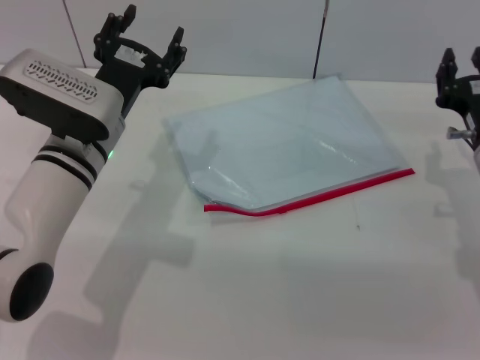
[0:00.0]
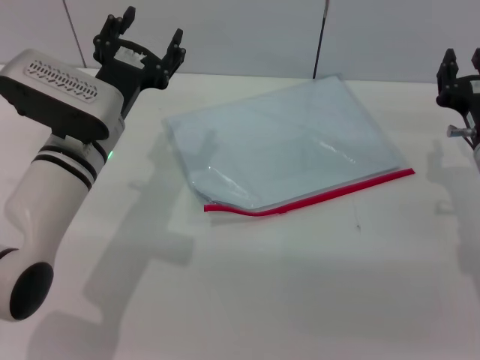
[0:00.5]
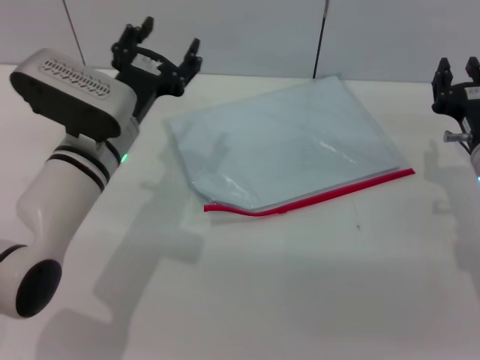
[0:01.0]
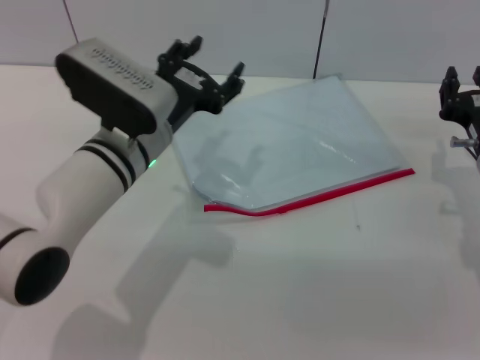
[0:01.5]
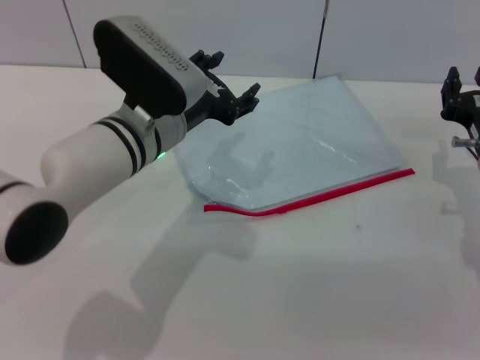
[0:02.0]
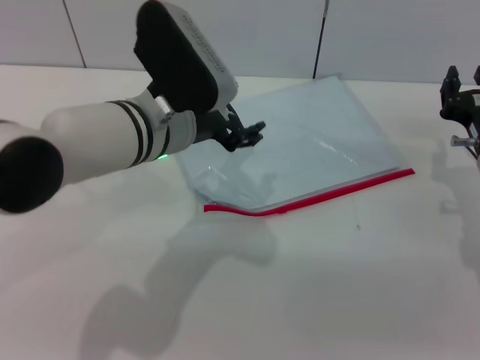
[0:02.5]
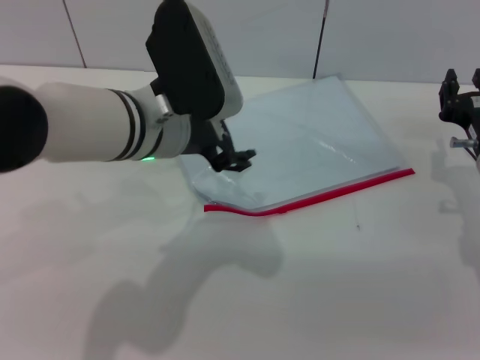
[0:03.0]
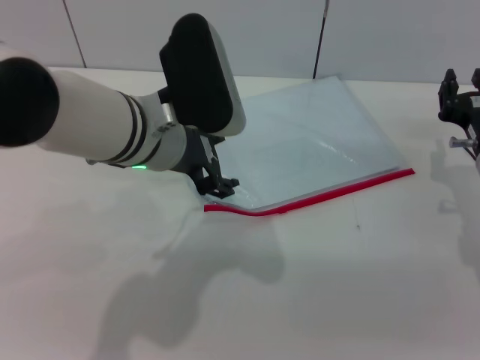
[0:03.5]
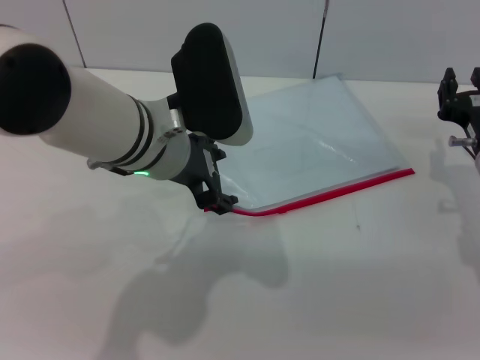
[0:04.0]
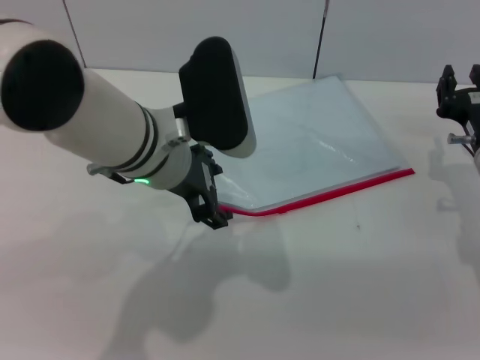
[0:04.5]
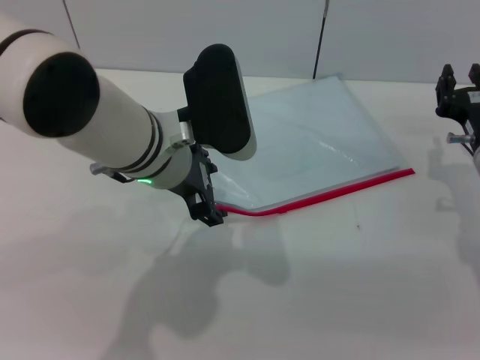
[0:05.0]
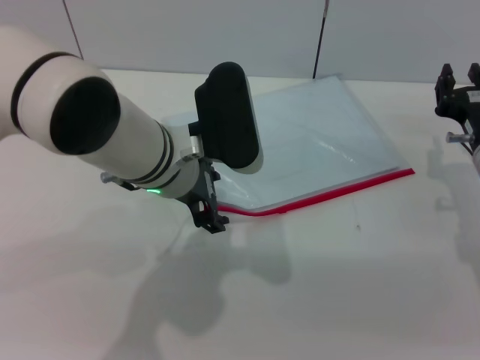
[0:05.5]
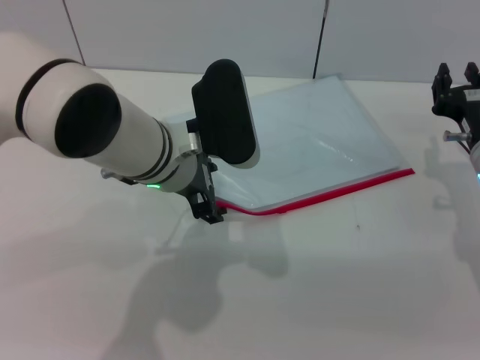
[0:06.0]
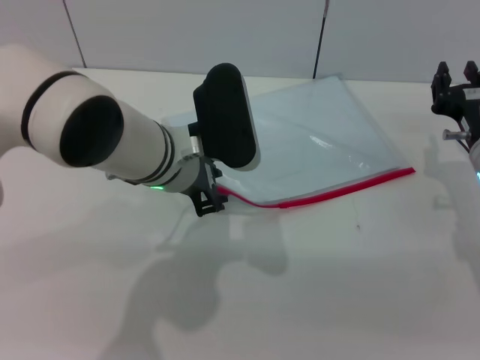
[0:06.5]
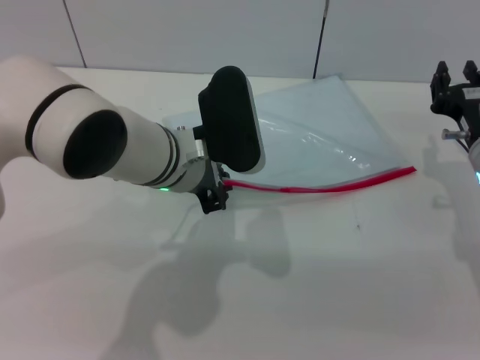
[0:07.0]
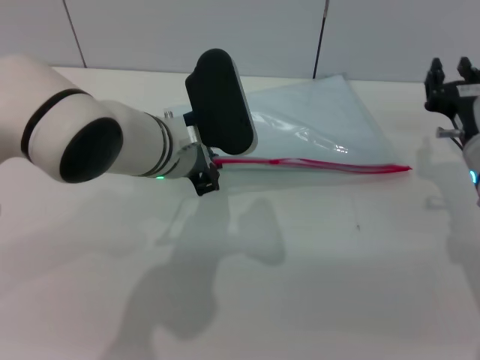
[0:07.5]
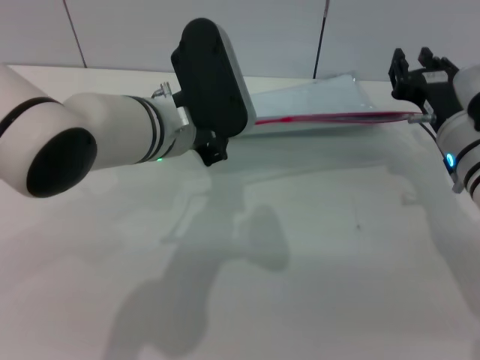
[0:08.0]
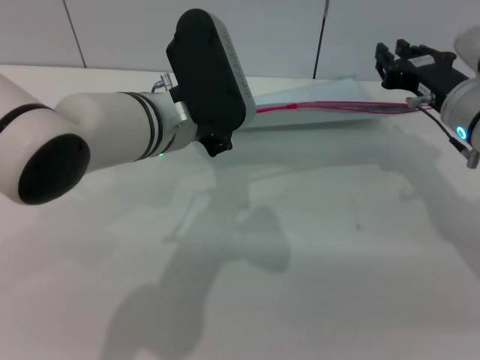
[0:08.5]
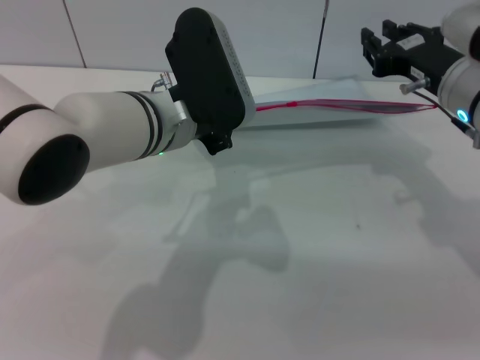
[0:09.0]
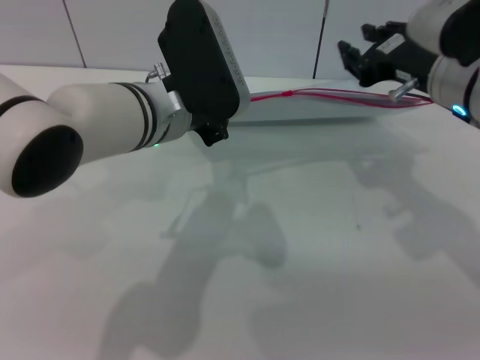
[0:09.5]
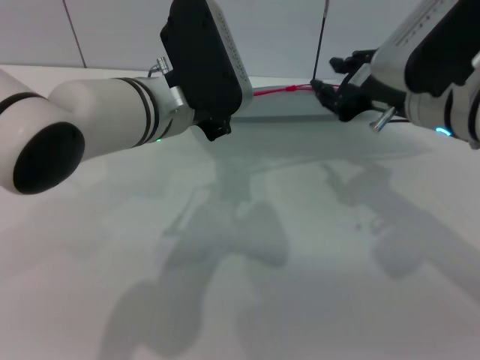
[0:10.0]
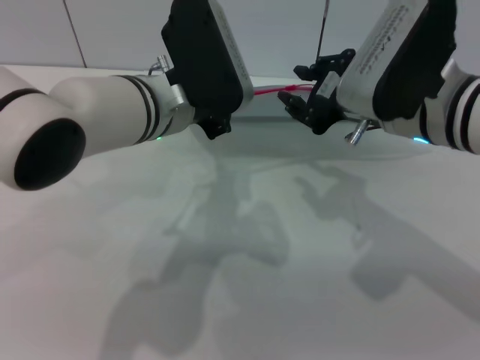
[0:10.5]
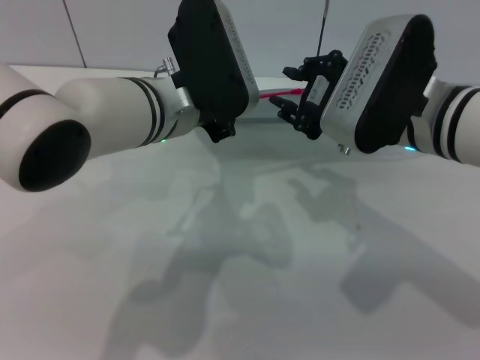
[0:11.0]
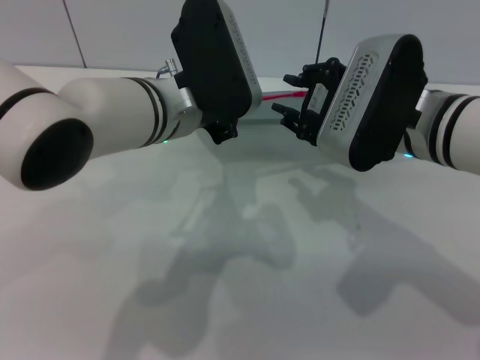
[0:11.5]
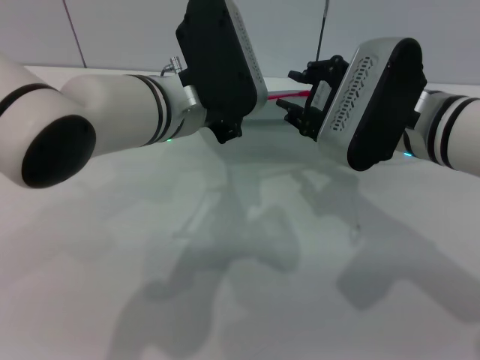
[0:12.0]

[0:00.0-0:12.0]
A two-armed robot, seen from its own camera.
Step, 0:00.0 to 0:07.5: Pick up the transparent plastic bag with the left gripper.
0:00.0 to 0:02.0: The left gripper is displaced to the right by approximately 5 cm.
0:02.0 to 0:04.0: The left gripper ends up roughly 5 cm from where it was.
0:04.0 to 0:06.0: The grippers stay close to where they were, moving slightly.
0:06.0 to 0:08.0: The left gripper closes its fingers.
0:08.0 to 0:10.0: The right gripper goes approximately 10 cm upward.

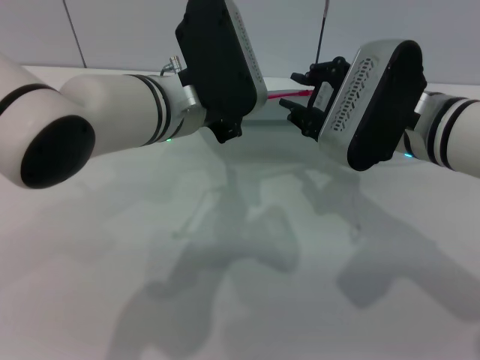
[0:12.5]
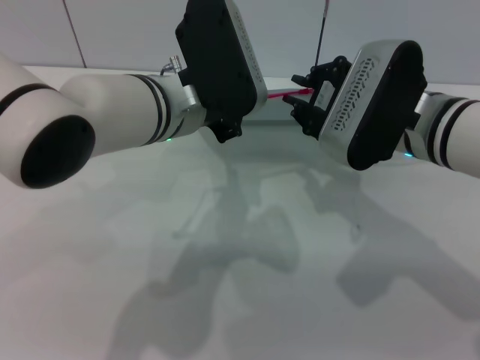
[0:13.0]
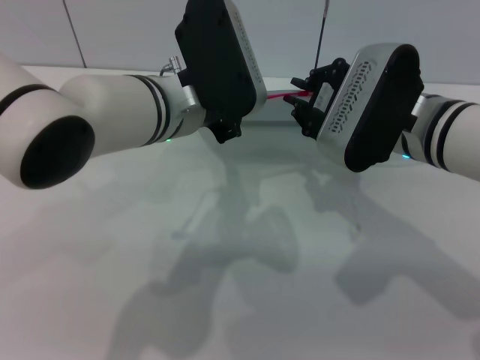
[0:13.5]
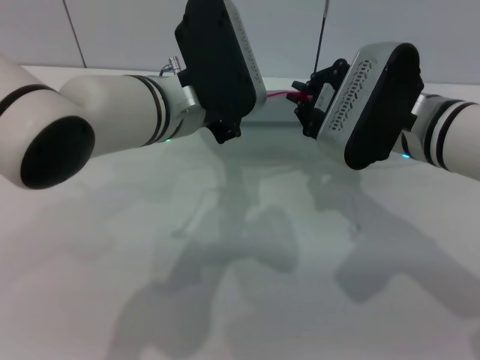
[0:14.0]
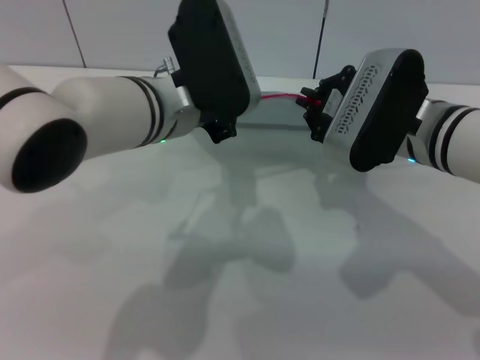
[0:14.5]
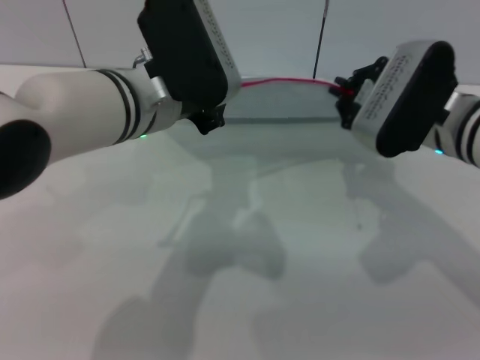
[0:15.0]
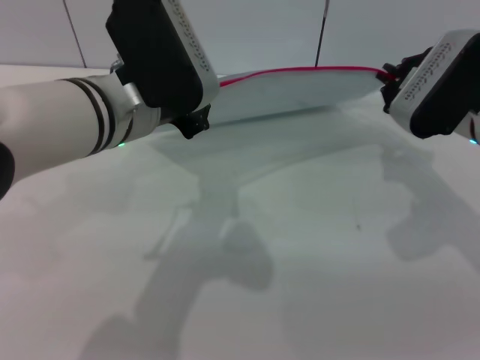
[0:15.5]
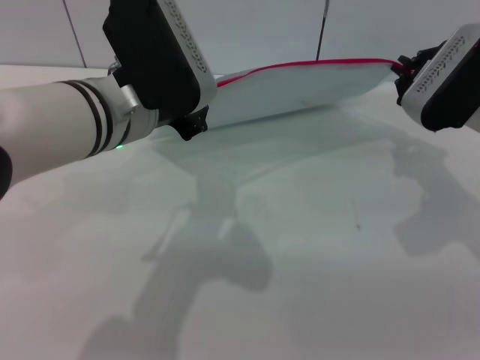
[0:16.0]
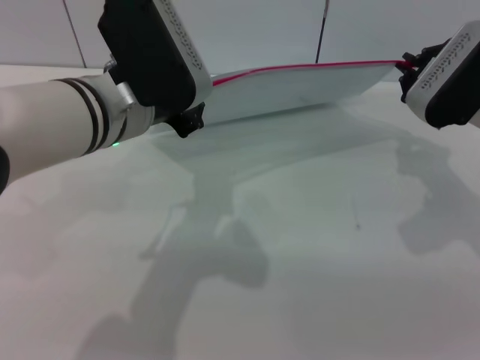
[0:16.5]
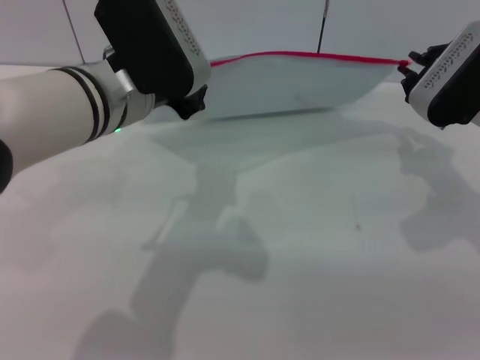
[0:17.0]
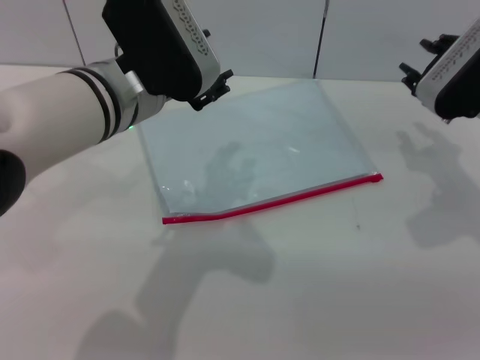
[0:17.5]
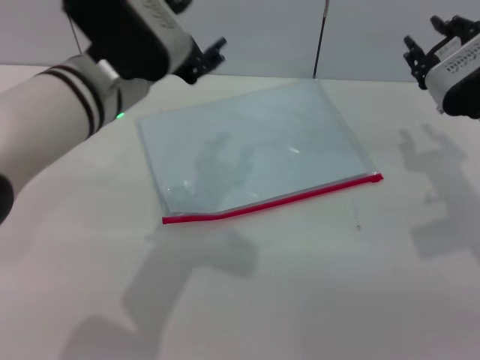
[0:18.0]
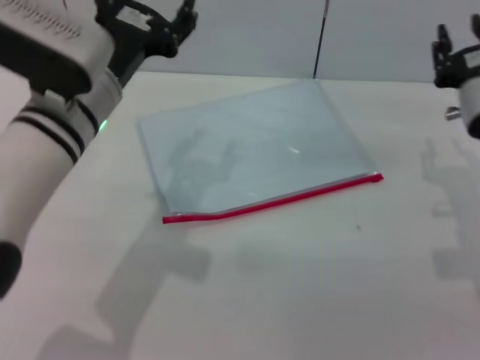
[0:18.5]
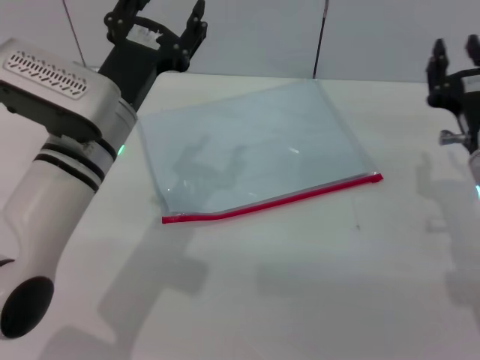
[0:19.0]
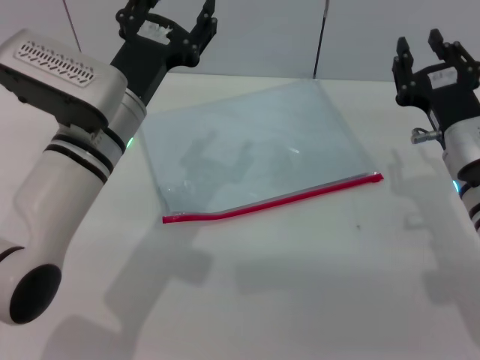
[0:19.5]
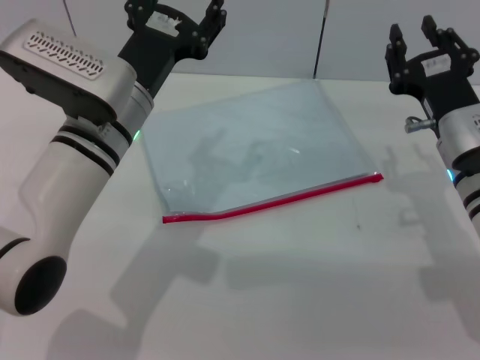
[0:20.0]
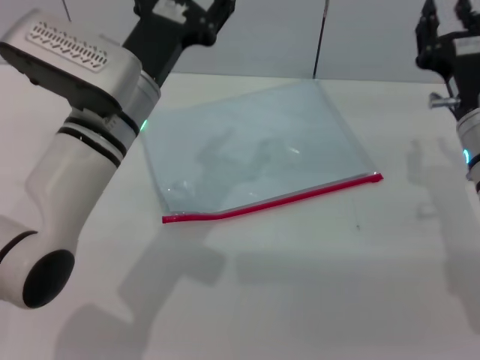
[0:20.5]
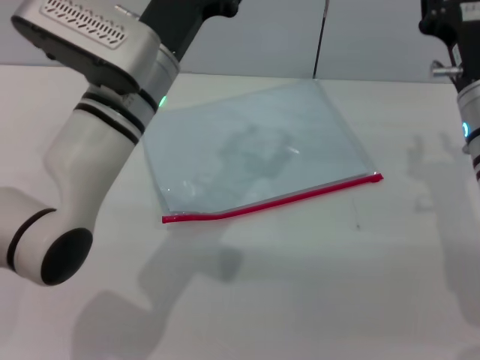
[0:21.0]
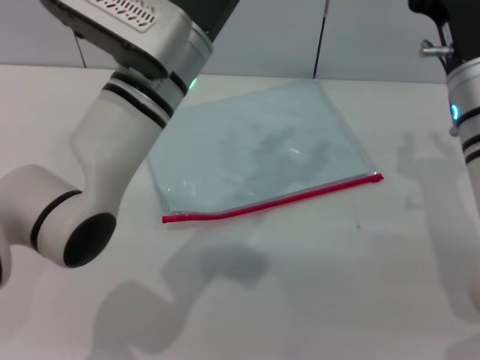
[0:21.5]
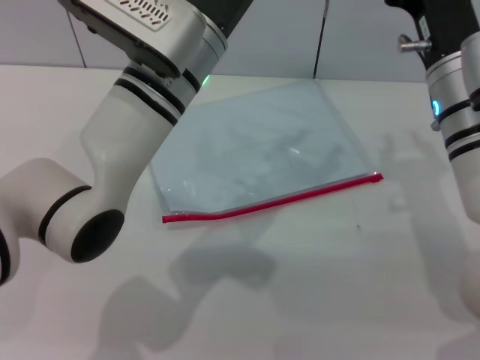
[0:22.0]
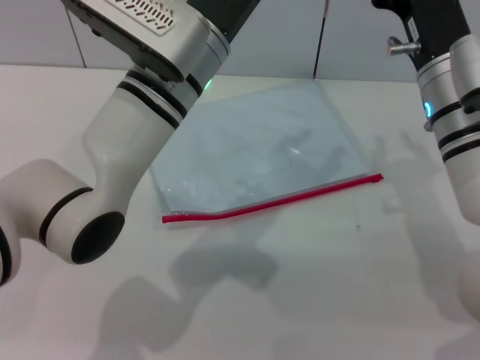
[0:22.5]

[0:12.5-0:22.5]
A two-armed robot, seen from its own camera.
Step, 0:12.5 to 0:17.0: Pulling up the zipper on the transparent plastic bag with the right gripper to close it.
Step, 0:17.5 to 0:18.0: Place the transparent plastic bag.
0:12.5 to 0:14.5: The right gripper closes its fingers.
0:14.5 to 0:16.5: The right gripper moves to the right, approximately 10 cm.
0:16.5 to 0:18.5: The right gripper ends up approximately 5 cm from where it was, and opens up. Meanwhile the left gripper opens up.
0:20.5 to 0:22.5: The left gripper moves to the right, some 5 cm; the right gripper shifts by some 5 cm.
